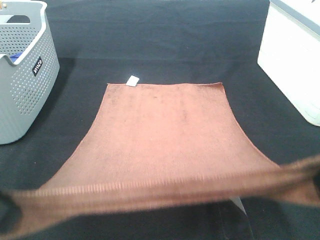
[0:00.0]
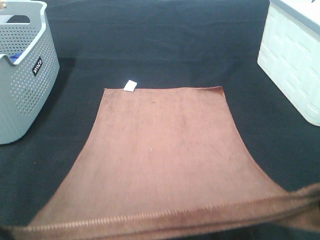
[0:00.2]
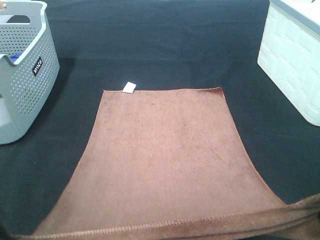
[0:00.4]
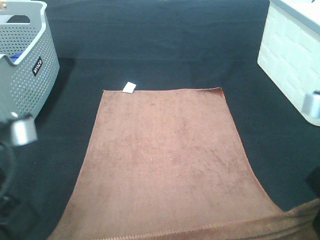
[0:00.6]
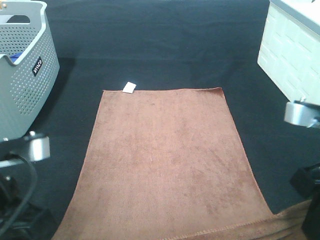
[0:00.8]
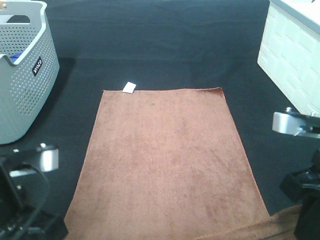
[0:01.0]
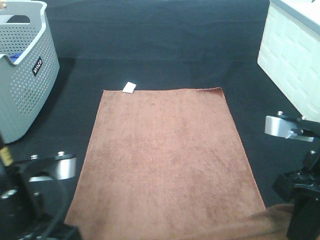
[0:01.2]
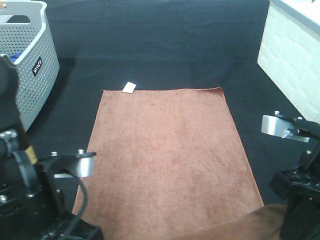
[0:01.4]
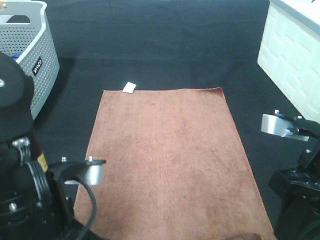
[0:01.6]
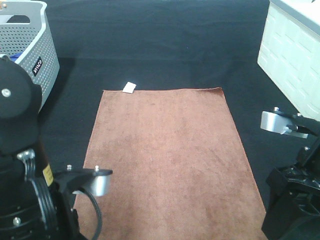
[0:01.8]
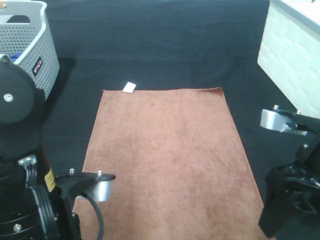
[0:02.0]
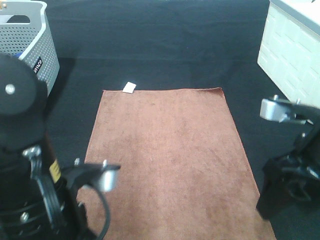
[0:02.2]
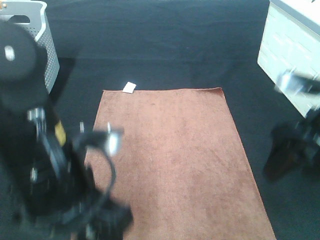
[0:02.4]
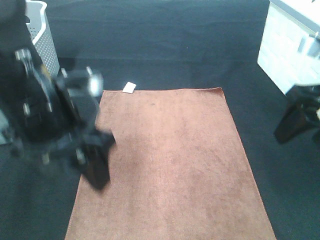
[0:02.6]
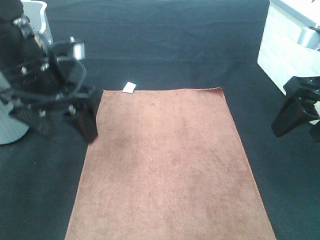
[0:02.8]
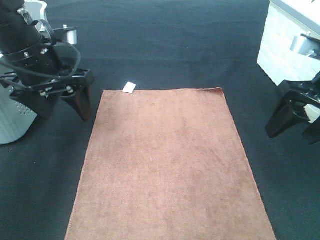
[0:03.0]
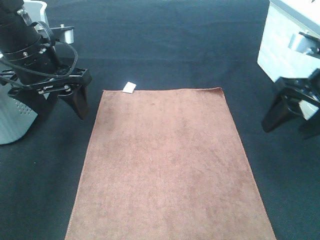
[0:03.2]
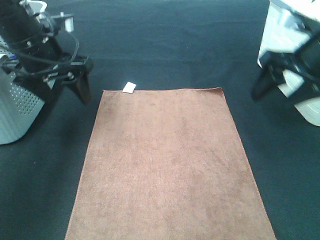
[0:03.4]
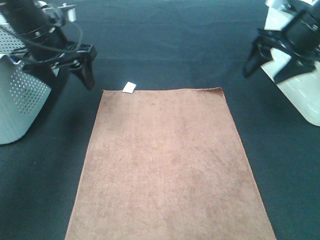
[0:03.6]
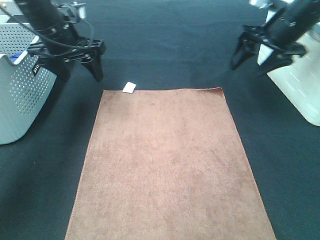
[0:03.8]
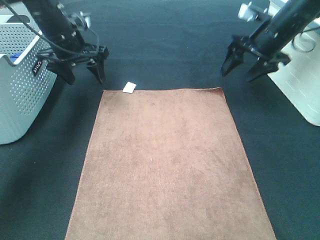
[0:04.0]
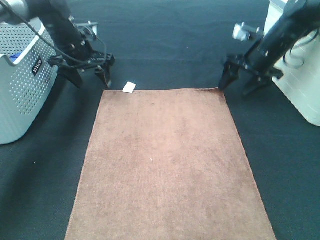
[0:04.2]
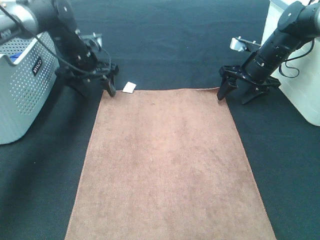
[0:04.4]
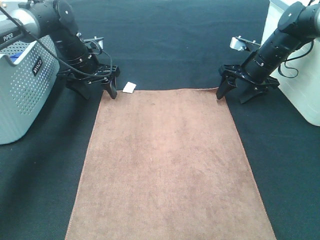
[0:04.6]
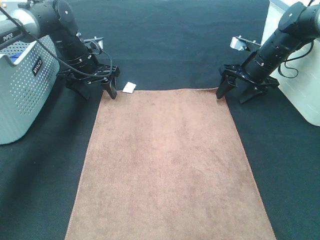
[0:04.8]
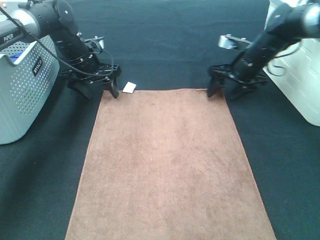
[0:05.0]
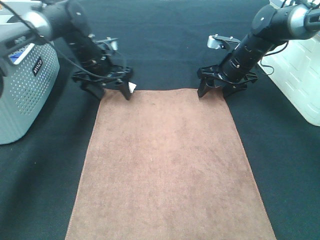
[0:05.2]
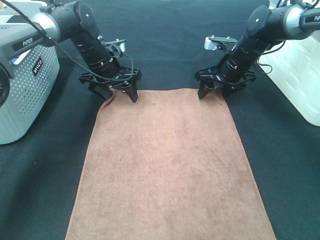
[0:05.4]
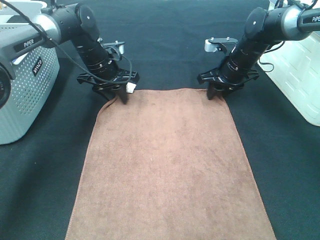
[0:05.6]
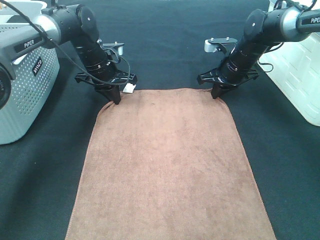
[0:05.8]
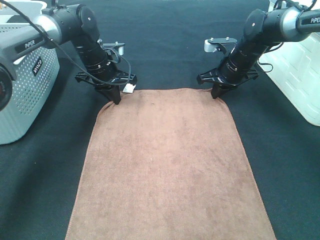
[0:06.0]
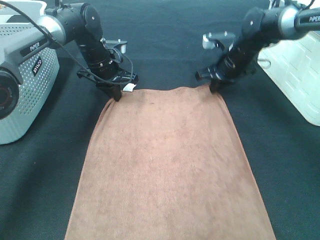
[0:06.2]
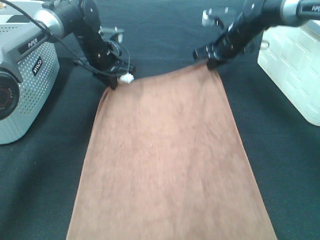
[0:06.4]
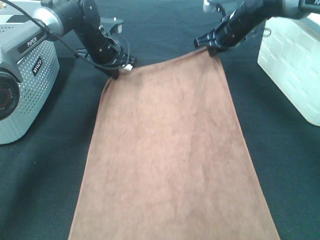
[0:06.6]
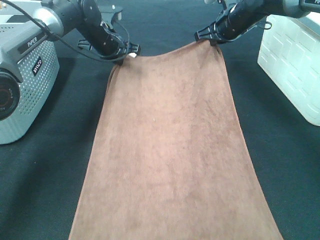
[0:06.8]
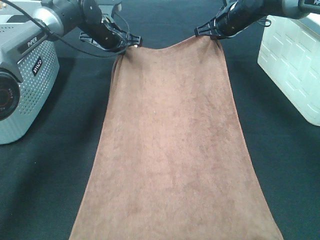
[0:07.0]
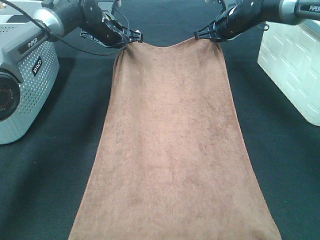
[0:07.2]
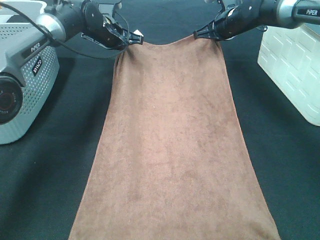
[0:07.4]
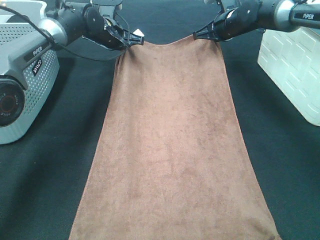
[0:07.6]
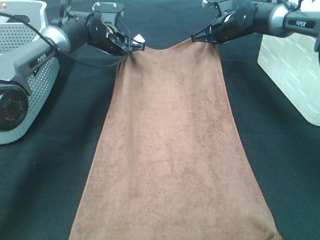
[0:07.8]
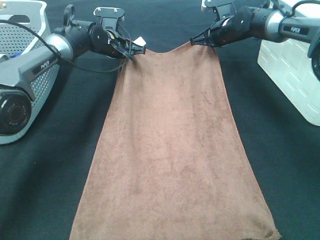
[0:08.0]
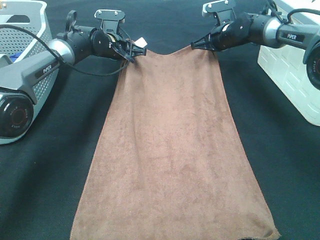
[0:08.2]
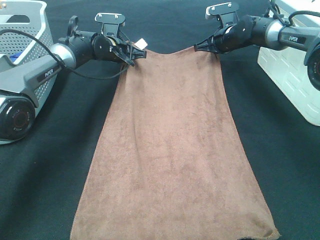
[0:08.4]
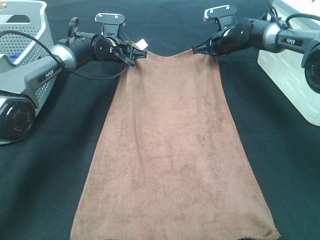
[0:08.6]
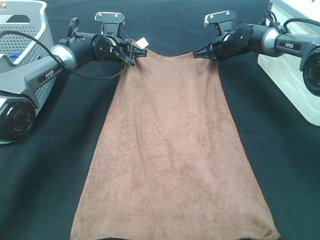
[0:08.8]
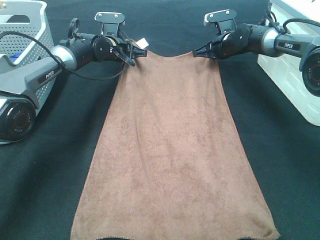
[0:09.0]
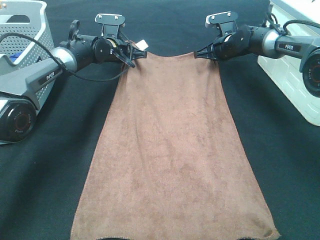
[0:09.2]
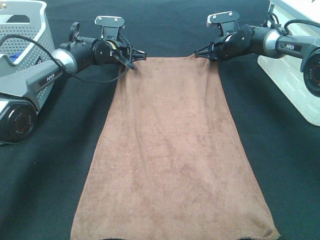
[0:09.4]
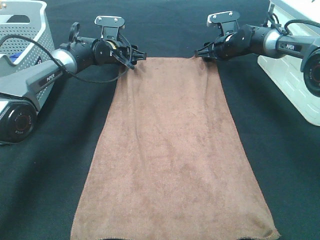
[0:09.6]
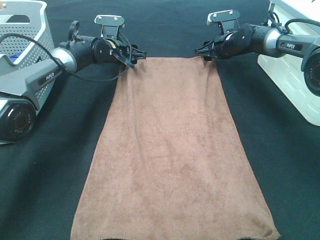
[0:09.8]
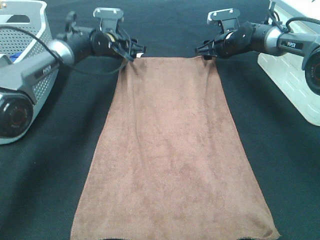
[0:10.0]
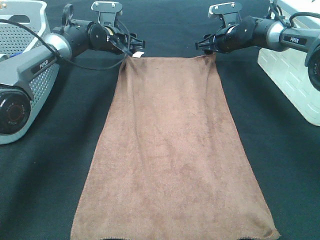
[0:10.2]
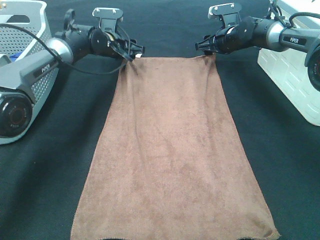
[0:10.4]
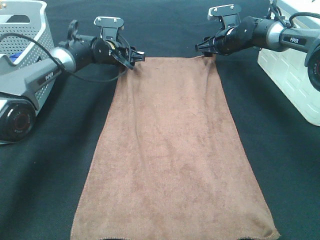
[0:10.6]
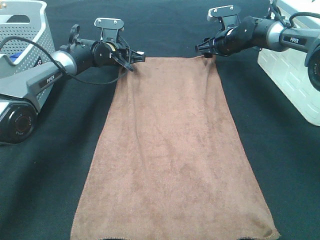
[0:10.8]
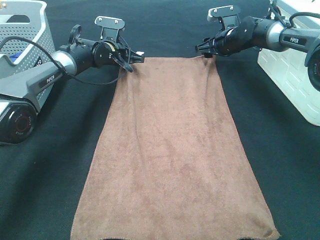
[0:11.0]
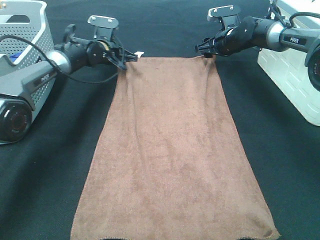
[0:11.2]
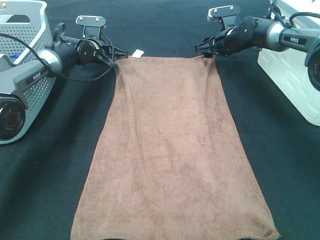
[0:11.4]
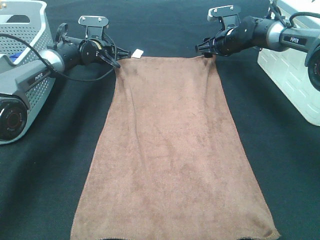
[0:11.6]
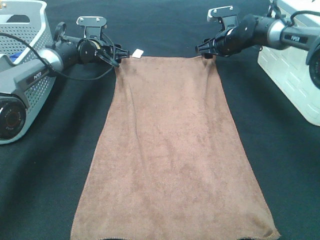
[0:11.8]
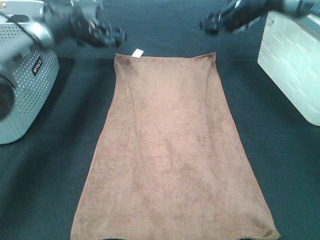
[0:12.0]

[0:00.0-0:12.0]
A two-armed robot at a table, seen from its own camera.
Task of the whole recording: Remove the towel and place it.
Step, 0:00.0 to 0:04.6: Right hand:adjust the brown towel.
Step, 0:00.0 to 0:06.2: Left hand:adjust the brown towel.
0:00.0 to 0:01.6: The left gripper goes about 15 cm downward and to the right, while the right gripper is displaced downward by some 10 cm, and opens its fingers.
0:01.6 to 0:03.0: The right gripper shifts roughly 10 cm forward, and opens up. Meanwhile the left gripper goes about 20 cm forward, and opens its fingers.
0:03.0 to 0:04.4: Both grippers move forward and downward, roughly 25 cm.
0:04.4 to 0:06.0: The left gripper closes. Meanwhile the right gripper shifts some 5 cm to the left, and closes.
0:06.0 to 0:07.6: The left gripper travels forward by approximately 5 cm. The right gripper moves forward and upward, some 10 cm.
0:07.6 to 0:09.0: Both grippers move downward, some 5 cm.
0:09.0 to 0:10.4: The left gripper opens. The right gripper opens.
0:10.4 to 0:12.0: The right gripper is displaced upward by approximately 10 cm; the left gripper shifts by about 5 cm, and closes and opens again.

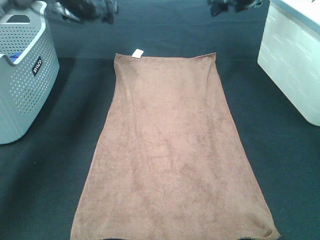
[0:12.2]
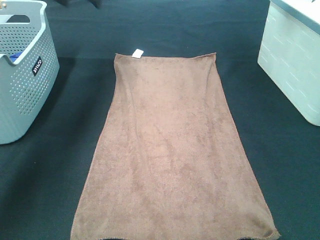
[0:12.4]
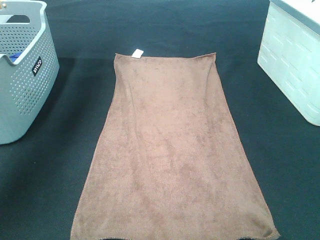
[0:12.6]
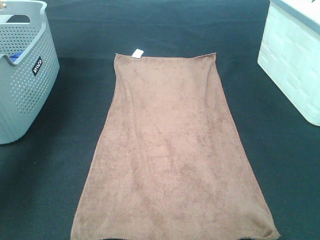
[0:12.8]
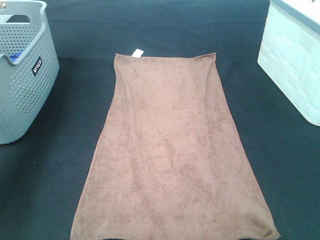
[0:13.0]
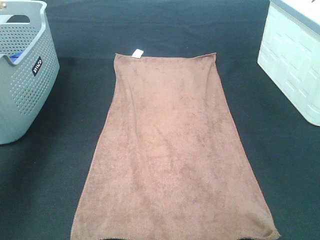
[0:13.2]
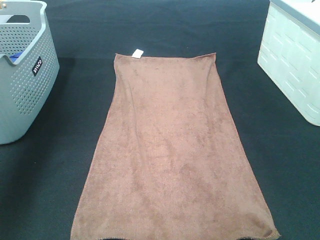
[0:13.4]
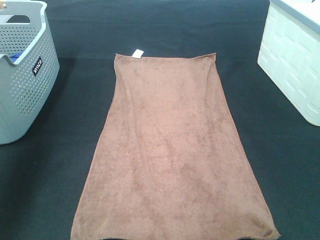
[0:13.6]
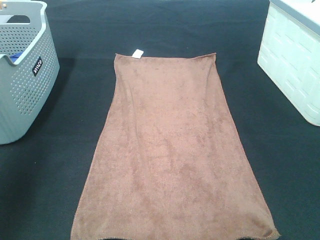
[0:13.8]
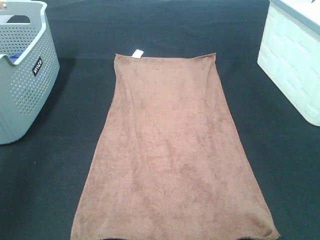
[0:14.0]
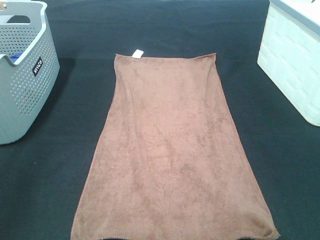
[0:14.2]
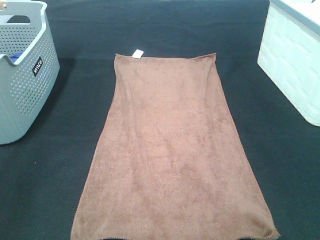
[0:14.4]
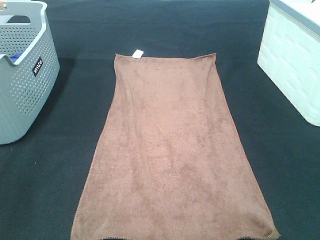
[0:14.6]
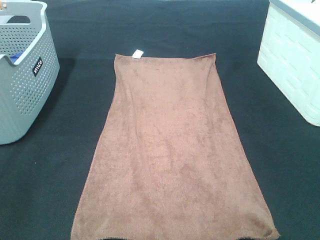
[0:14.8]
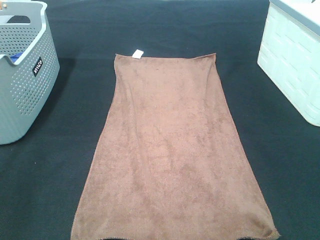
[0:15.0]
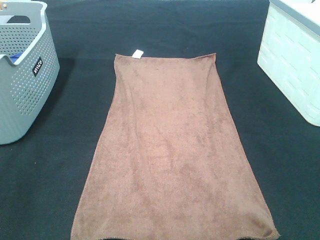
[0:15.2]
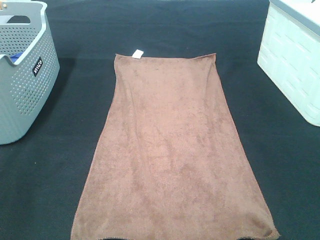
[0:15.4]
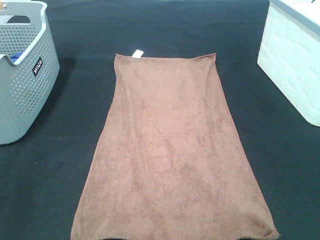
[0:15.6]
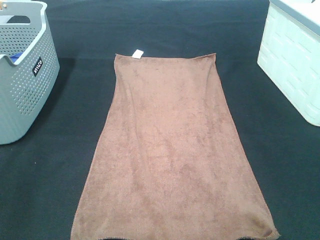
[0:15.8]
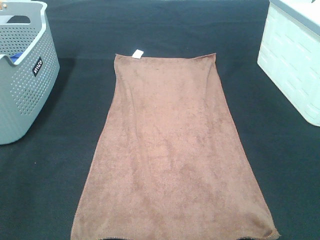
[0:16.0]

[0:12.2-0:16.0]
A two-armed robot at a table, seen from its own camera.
Task of the whole recording: Remove the towel and place it.
0:12.2 to 0:13.4: The right gripper travels backward and upward by approximately 30 cm. The left gripper is displaced backward, upward and to the left by approximately 35 cm.
0:13.4 to 0:14.8: The left gripper goes some 30 cm backward, while the right gripper is displaced backward and downward by about 25 cm.
0:14.8 to 0:16.0: The two grippers keep their place.

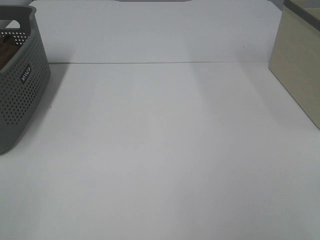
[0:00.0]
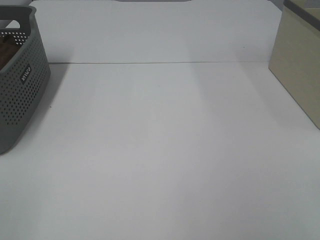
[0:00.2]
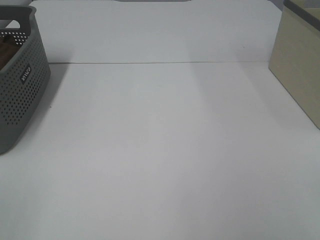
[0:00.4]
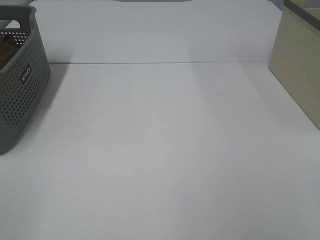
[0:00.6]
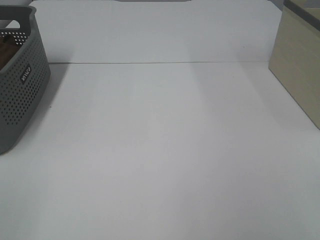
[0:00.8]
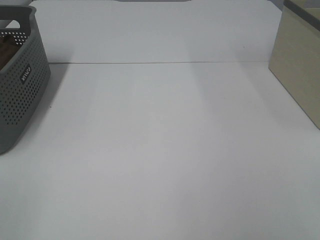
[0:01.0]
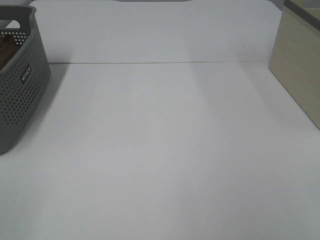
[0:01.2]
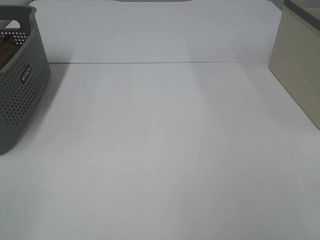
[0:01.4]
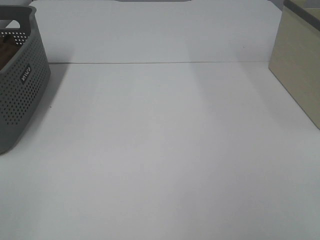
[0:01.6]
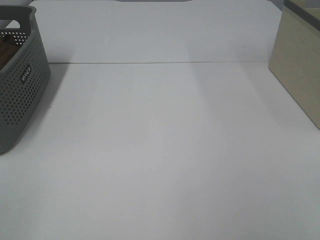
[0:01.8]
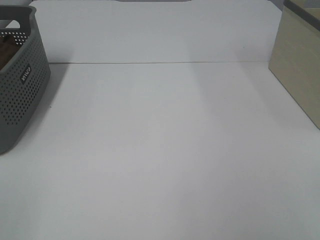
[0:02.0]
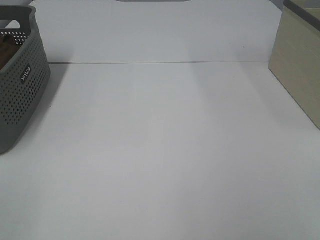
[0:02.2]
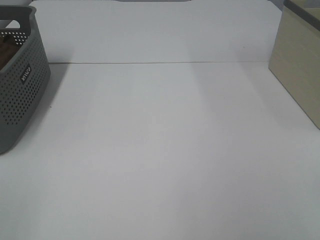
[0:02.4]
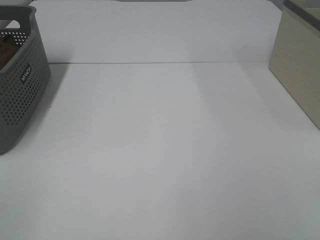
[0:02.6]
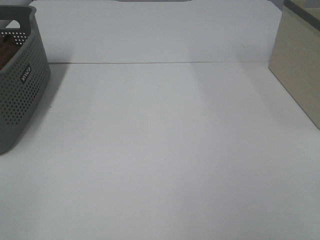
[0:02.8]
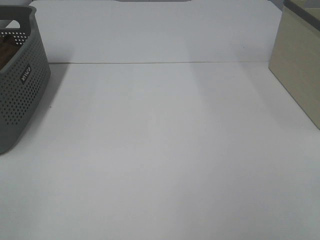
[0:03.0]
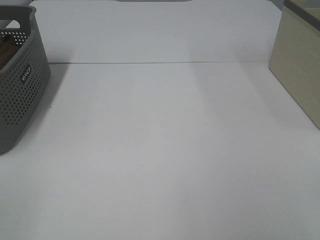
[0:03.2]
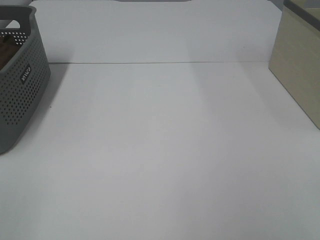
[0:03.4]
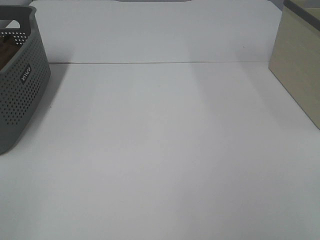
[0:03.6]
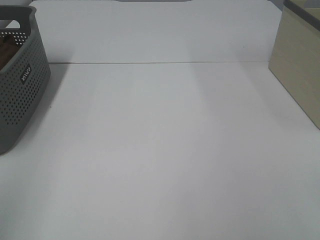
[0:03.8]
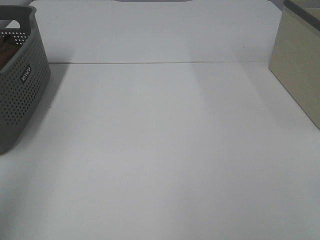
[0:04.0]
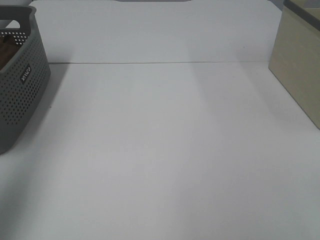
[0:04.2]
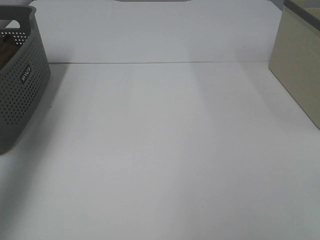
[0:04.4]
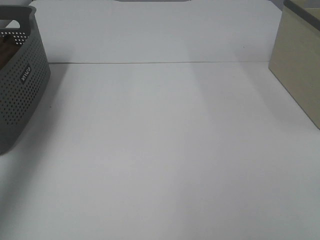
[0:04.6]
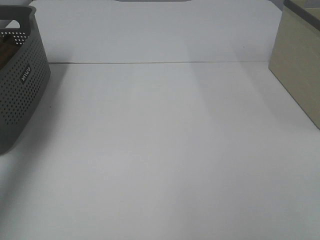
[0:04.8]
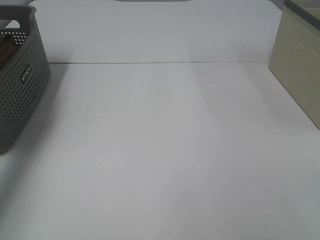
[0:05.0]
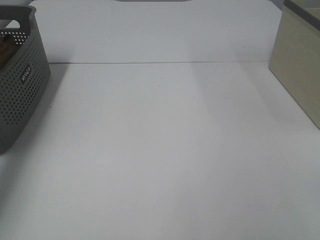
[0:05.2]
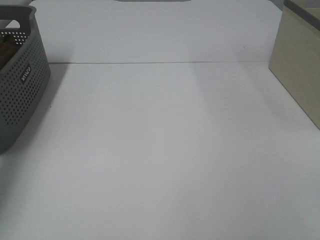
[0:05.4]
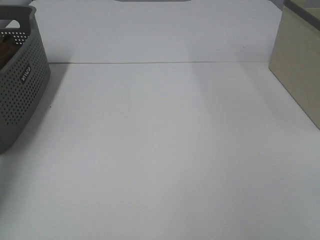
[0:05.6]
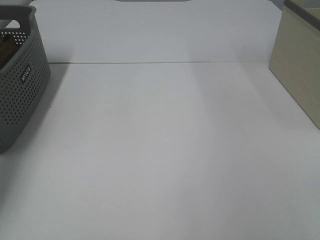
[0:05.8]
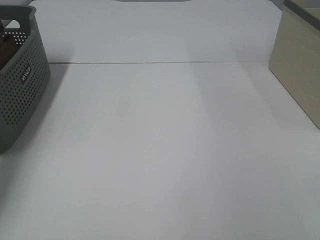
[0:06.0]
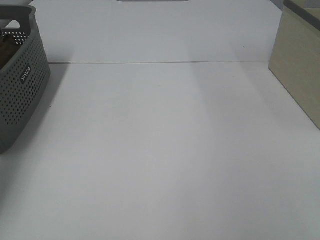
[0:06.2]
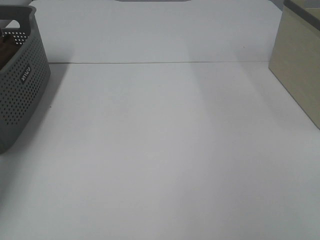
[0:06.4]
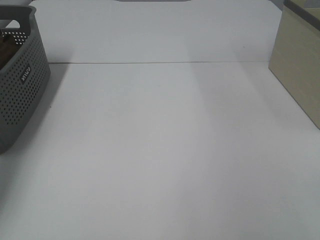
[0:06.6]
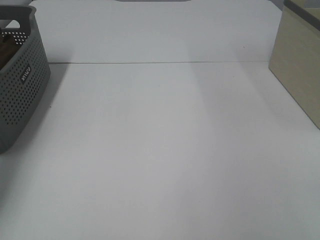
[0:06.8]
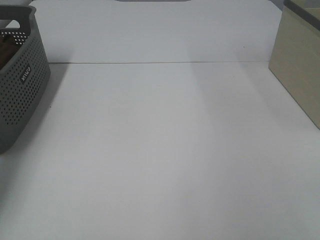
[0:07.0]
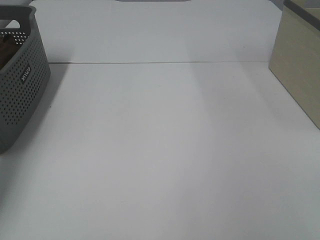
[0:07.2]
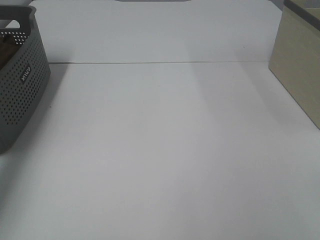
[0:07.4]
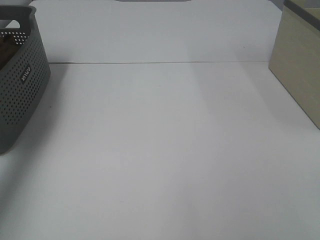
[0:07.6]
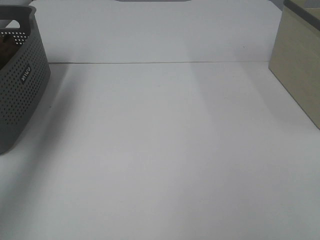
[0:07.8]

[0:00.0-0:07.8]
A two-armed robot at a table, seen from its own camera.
Task of the whole recording: Remove the towel and place it.
0:00.0 to 0:03.2: Neither gripper changes place.
0:03.2 to 0:04.6: The left gripper heads forward, covering some 35 cm.
0:04.6 to 0:06.2: The left gripper is displaced downward and forward by some 20 cm.
0:06.2 to 0:07.8: The left gripper is displaced upward by some 20 cm, and closes.
